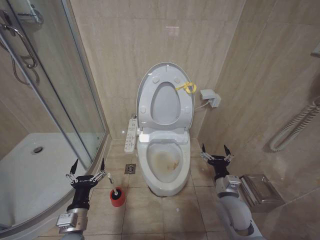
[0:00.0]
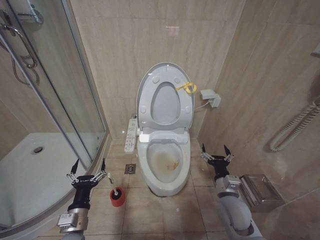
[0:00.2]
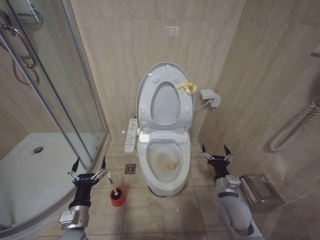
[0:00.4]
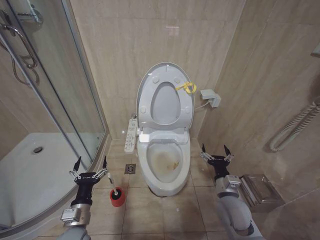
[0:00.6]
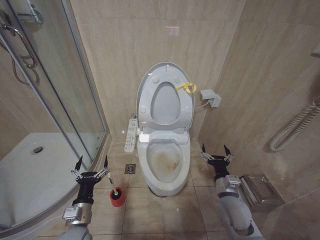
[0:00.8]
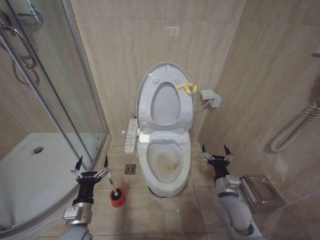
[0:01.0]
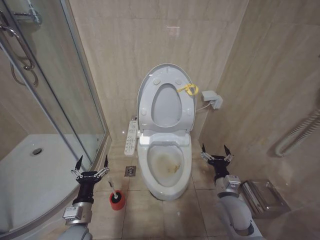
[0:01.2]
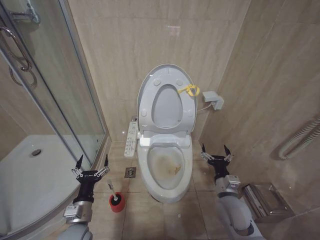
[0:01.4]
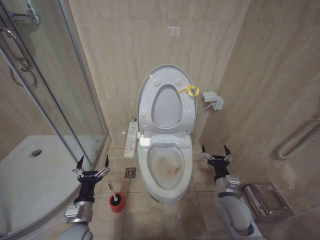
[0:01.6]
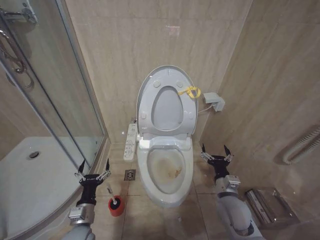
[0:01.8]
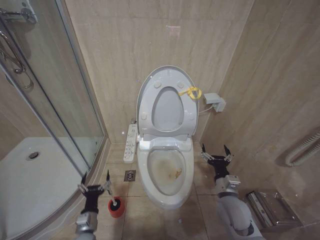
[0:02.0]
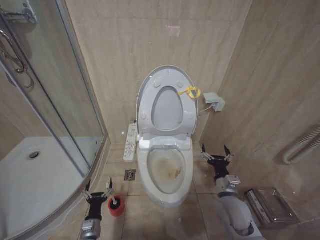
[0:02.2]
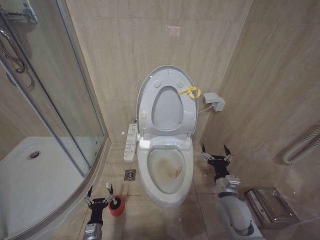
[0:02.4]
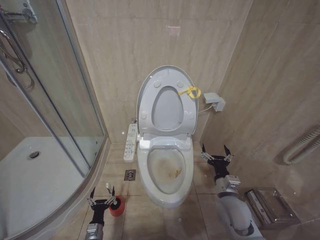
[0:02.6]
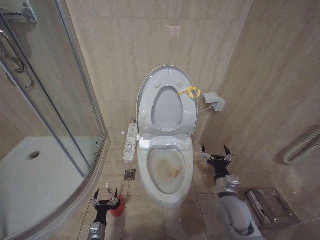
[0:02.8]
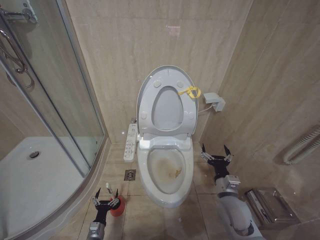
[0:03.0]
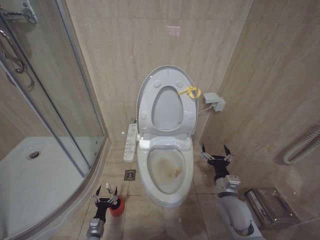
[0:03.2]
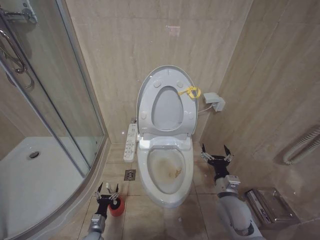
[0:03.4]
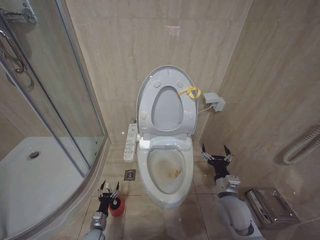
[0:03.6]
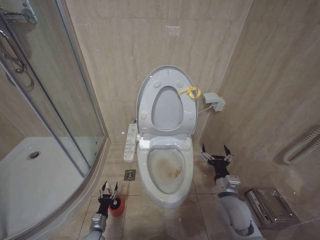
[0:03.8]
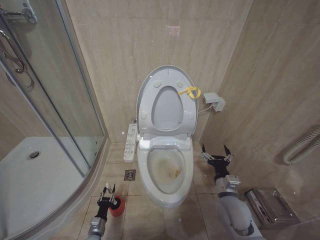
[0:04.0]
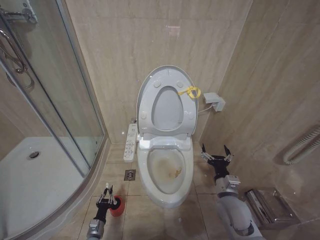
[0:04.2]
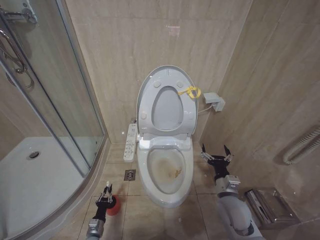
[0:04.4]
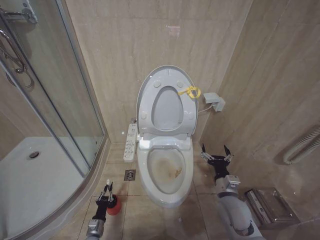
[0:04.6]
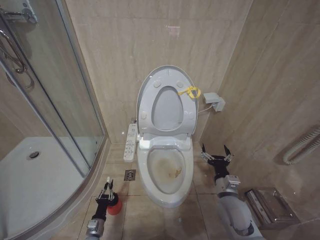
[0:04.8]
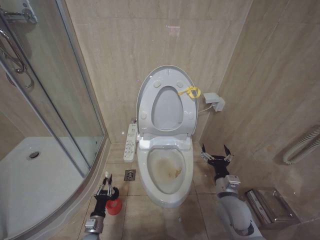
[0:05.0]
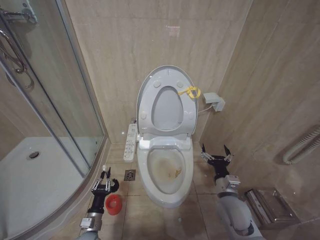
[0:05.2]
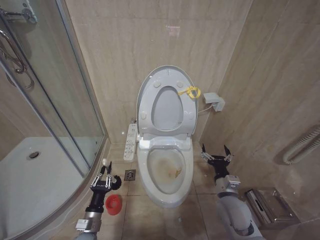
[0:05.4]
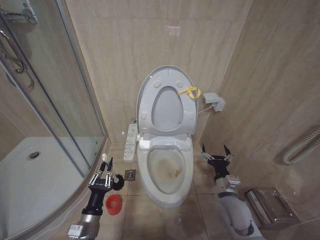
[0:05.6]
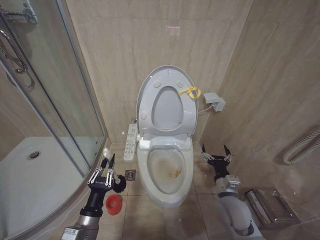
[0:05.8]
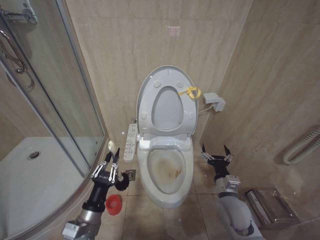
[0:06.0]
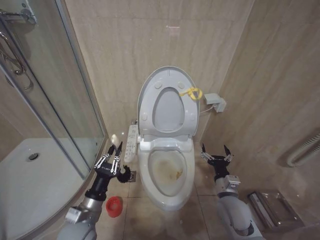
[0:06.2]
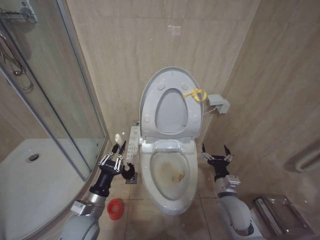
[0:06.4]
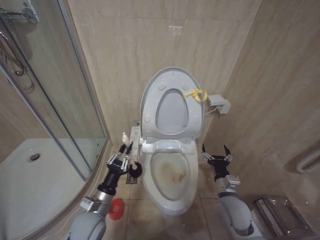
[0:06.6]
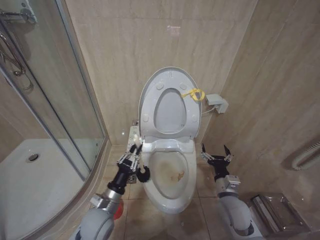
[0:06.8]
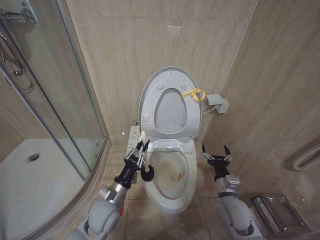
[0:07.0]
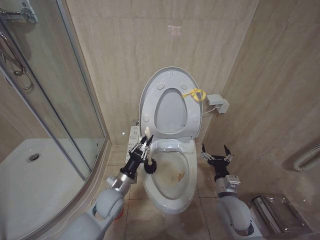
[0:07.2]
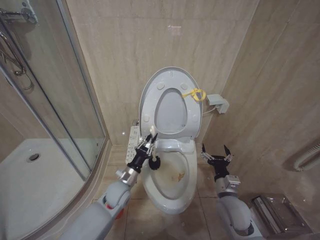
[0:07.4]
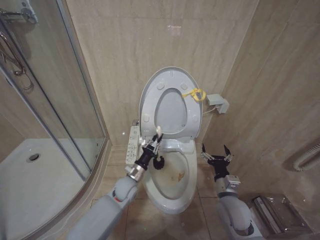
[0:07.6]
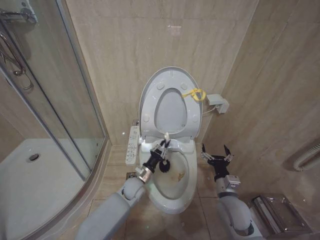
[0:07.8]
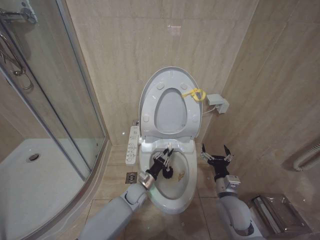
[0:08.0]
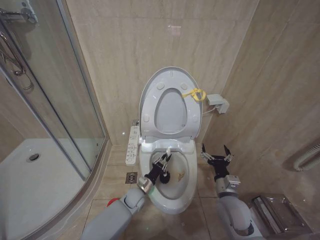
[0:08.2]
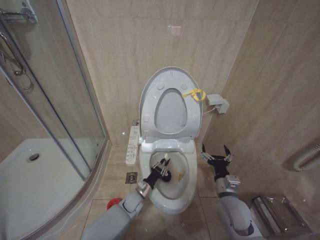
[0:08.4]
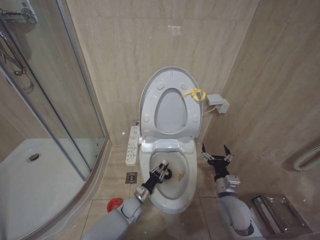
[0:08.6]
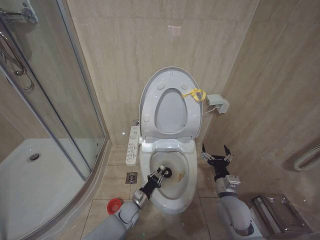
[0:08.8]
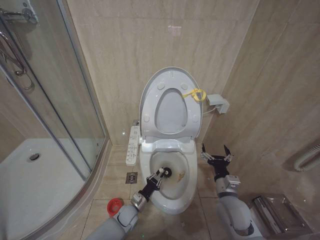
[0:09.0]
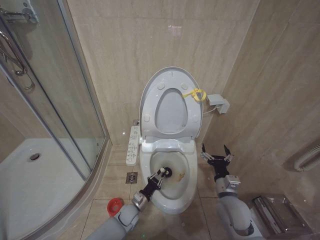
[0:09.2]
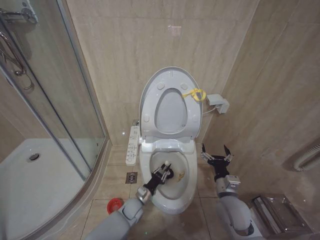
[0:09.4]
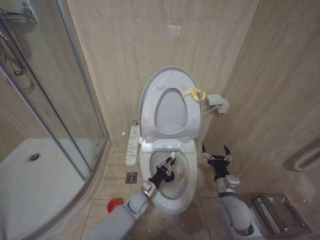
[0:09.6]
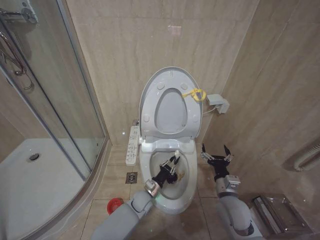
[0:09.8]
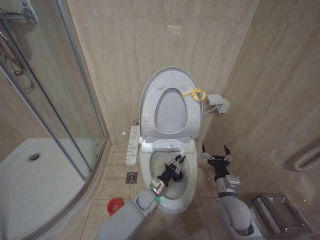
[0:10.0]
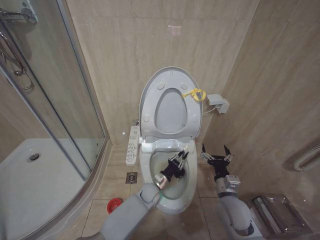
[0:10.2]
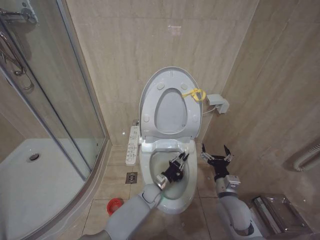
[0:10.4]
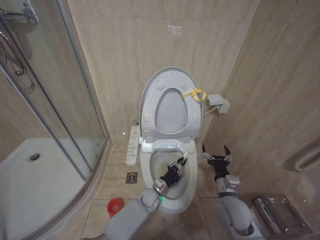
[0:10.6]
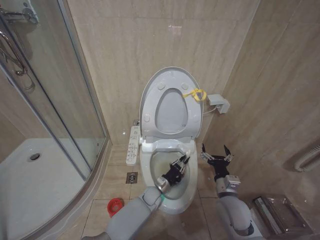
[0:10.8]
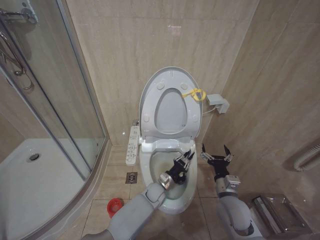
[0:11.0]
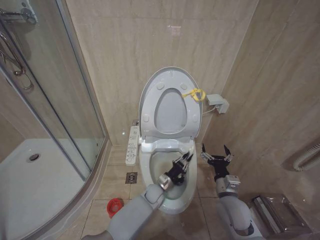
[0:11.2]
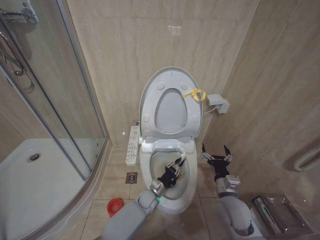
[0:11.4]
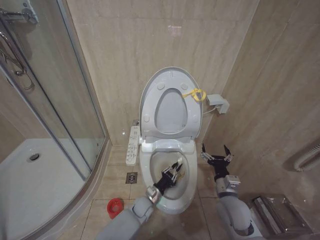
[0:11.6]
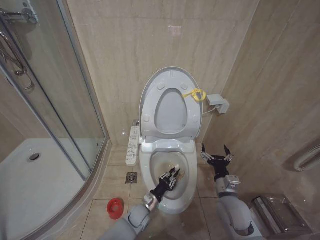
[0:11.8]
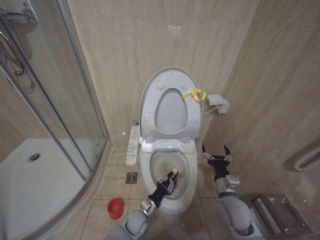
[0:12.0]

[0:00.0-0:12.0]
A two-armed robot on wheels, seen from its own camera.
Task of the whole recording: Open the toilet lid, clean the toilet bowl with a toilet brush, close the toilet lid, and flush.
0:00.0 to 0:01.6: The grippers move only a little.
0:01.6 to 0:03.0: The left gripper travels downward by roughly 25 cm.
0:03.0 to 0:04.4: The left gripper closes its fingers.
0:04.4 to 0:06.0: The left gripper travels upward by some 30 cm.
0:06.0 to 0:07.6: The left gripper shifts about 20 cm forward and to the right.
0:07.6 to 0:09.0: The left gripper travels downward by approximately 15 cm.
0:09.0 to 0:10.4: The left gripper moves to the right, upward and forward, approximately 15 cm.
0:10.4 to 0:12.0: The left gripper is displaced backward, to the left and downward by some 10 cm.

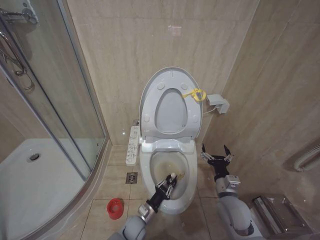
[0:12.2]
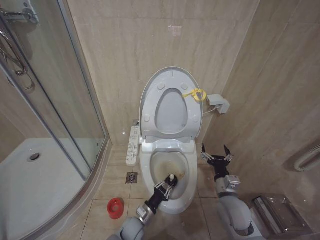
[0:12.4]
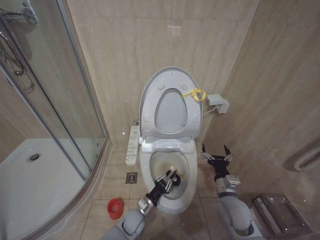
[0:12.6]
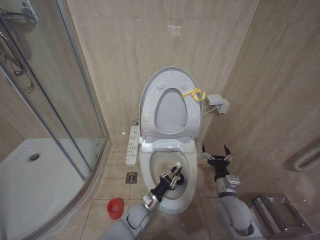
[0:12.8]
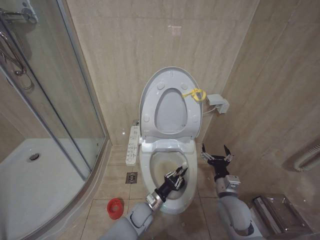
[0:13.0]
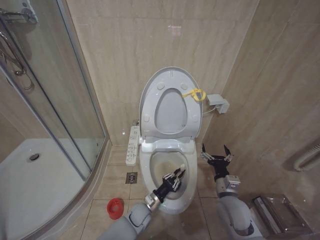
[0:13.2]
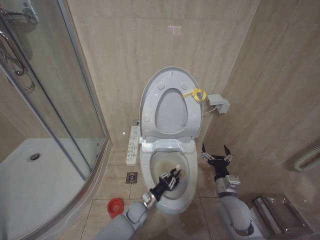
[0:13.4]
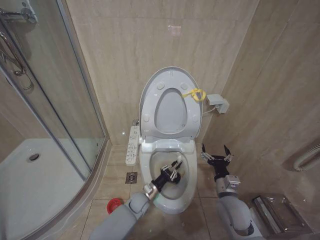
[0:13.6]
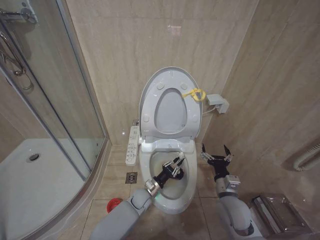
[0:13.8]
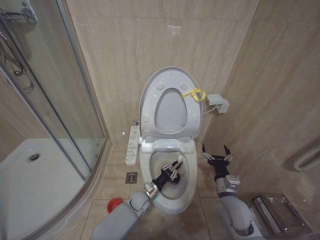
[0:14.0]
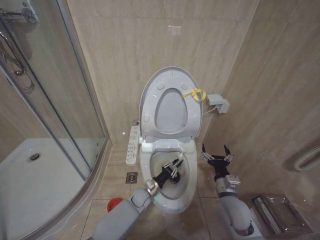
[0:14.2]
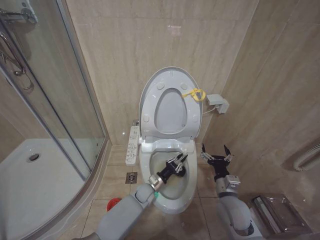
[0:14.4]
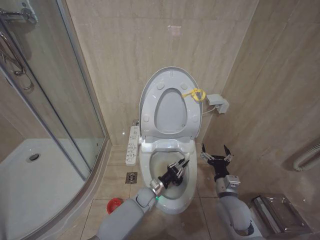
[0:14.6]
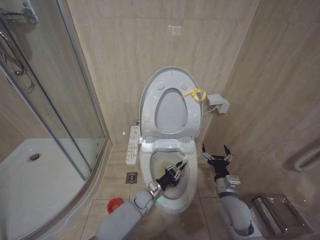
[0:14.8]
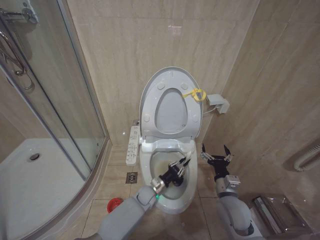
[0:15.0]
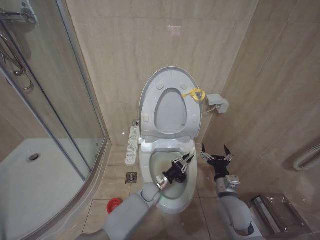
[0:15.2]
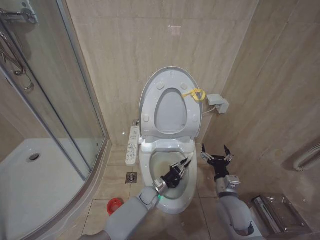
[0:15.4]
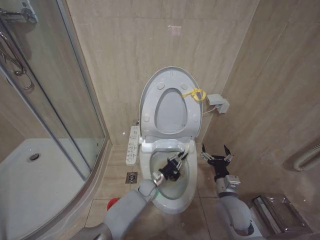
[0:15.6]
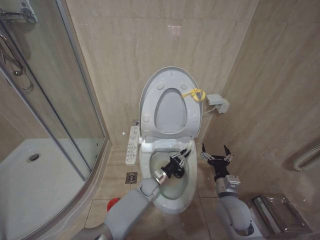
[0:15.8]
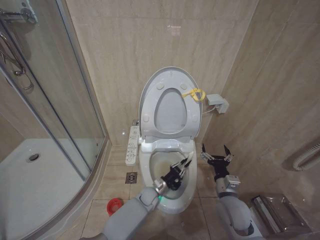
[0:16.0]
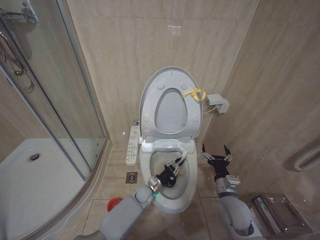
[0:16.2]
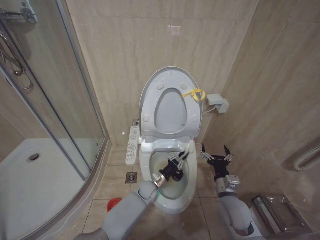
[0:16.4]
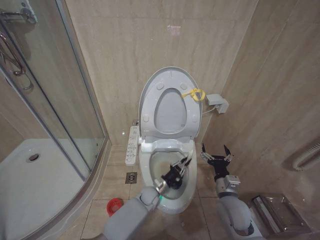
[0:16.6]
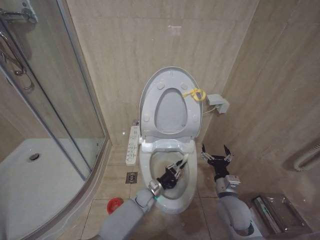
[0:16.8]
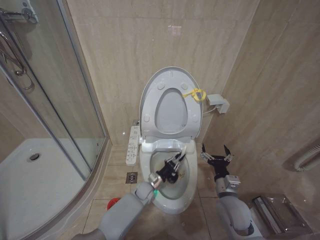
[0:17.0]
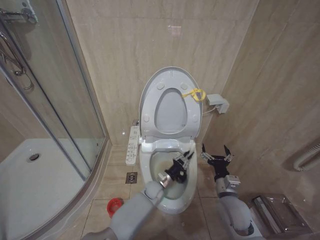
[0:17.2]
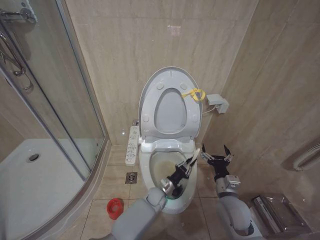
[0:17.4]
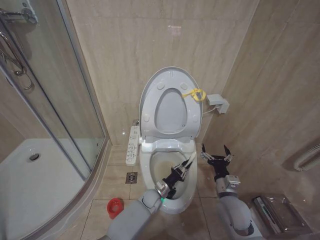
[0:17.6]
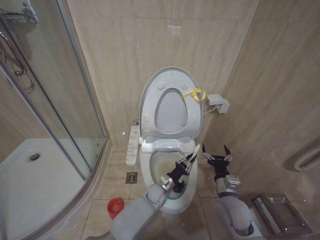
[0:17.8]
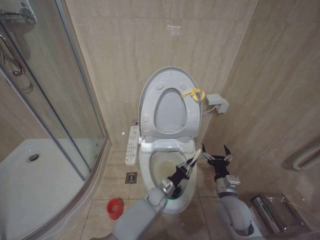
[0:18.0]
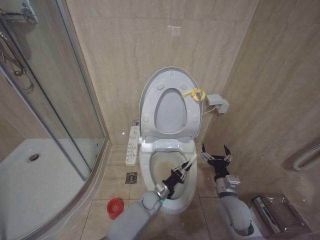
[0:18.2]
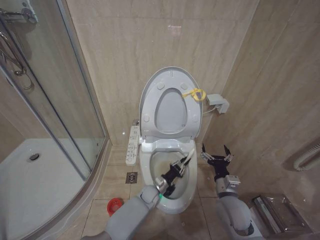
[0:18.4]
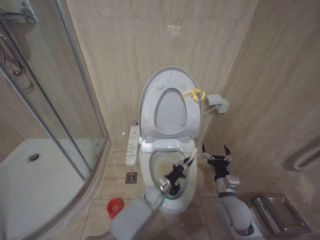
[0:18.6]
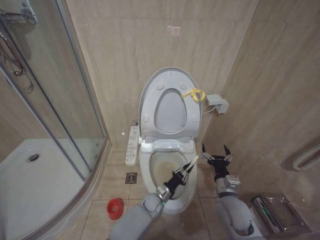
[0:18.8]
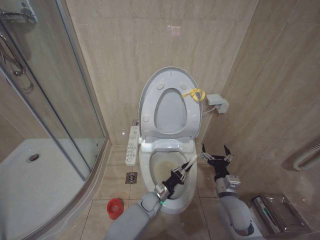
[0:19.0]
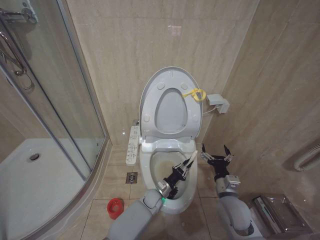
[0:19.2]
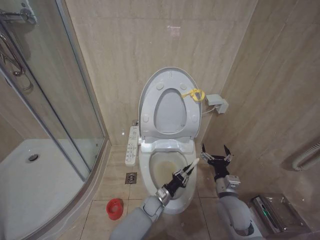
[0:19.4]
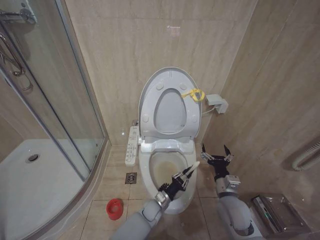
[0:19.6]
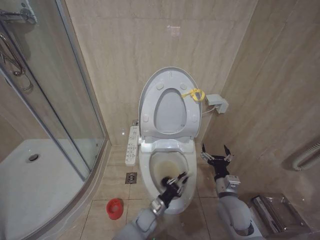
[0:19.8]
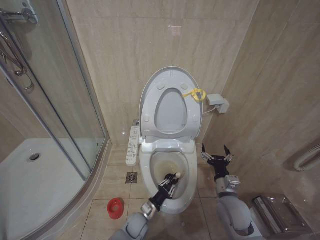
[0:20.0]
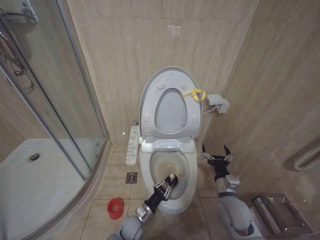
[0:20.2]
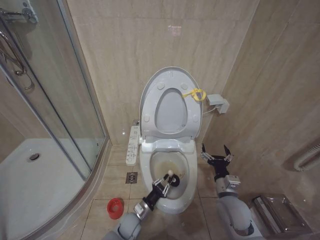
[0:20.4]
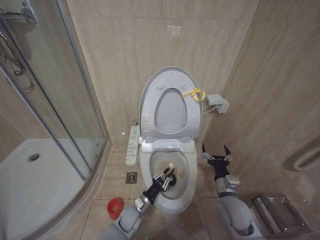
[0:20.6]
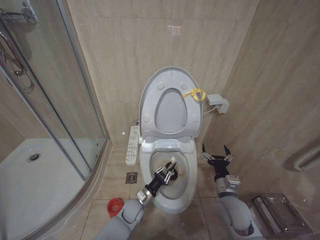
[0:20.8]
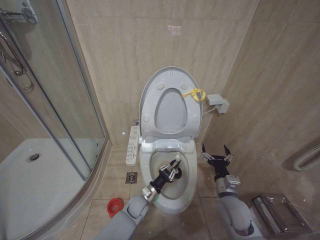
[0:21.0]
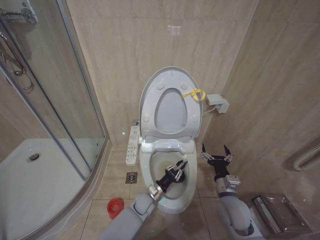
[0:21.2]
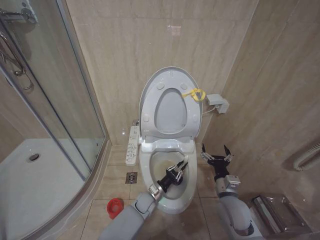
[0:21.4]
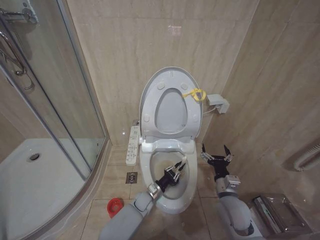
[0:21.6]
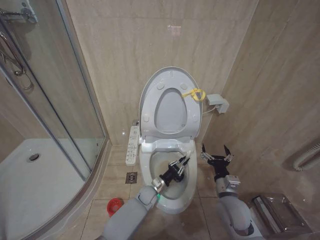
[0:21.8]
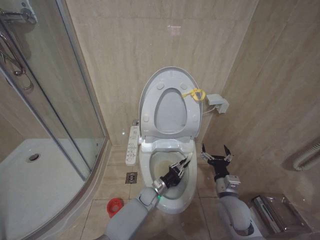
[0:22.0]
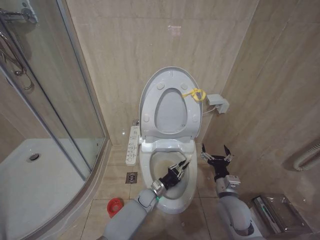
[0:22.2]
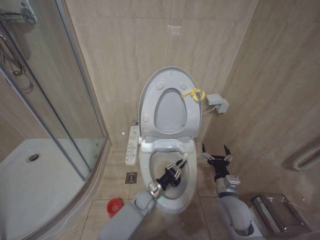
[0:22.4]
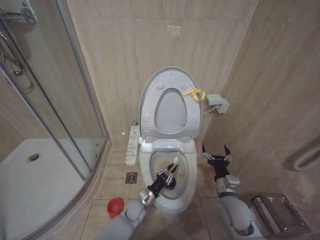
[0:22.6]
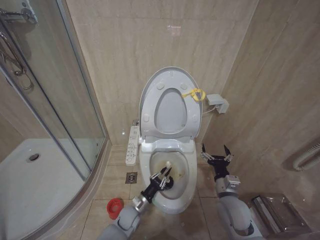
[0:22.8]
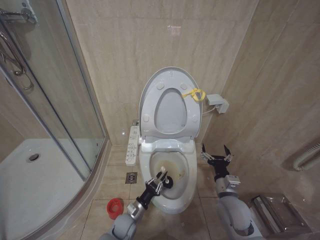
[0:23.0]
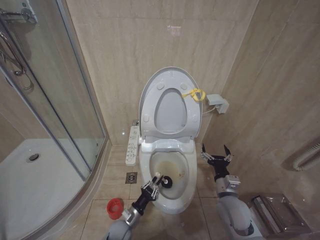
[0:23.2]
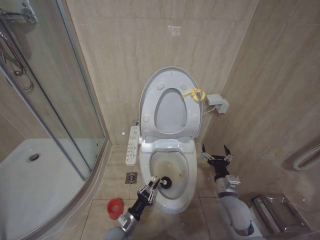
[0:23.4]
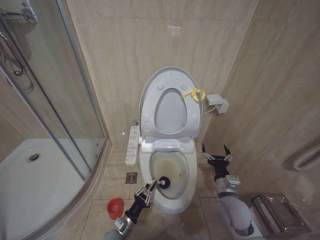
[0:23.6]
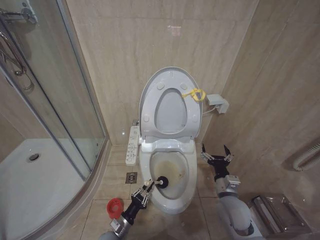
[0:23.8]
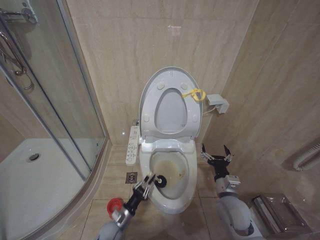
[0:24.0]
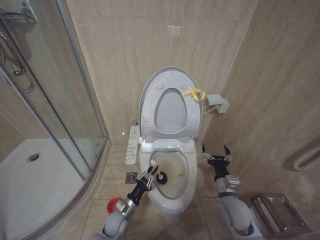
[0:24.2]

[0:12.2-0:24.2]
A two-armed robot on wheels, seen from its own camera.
Task of the whole recording: Open the toilet lid, clean the toilet bowl with a toilet brush, close the toilet lid, and flush.
0:12.2 to 0:13.8: The left gripper is displaced forward by approximately 10 cm.
0:13.8 to 0:15.2: The left gripper moves some 5 cm.
0:15.2 to 0:18.2: There are only small adjustments of the grippers.
0:18.2 to 0:19.8: The left gripper heads backward, covering some 5 cm.
0:19.8 to 0:21.2: The left gripper goes to the left and returns, roughly 10 cm each way.
0:21.2 to 0:22.6: There are only small adjustments of the grippers.
0:22.6 to 0:24.2: The left gripper goes roughly 15 cm to the left and backward.
